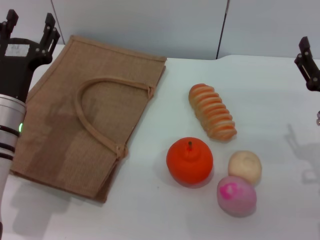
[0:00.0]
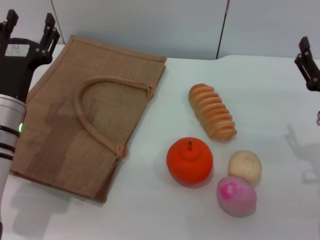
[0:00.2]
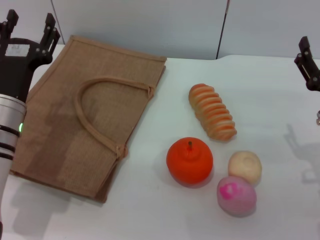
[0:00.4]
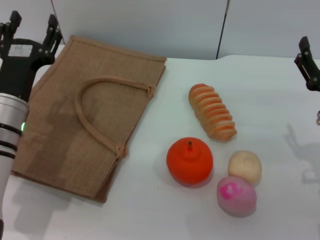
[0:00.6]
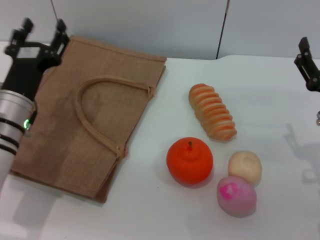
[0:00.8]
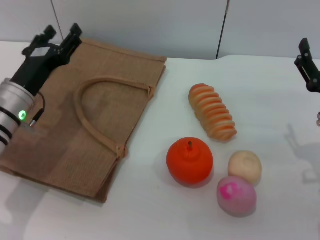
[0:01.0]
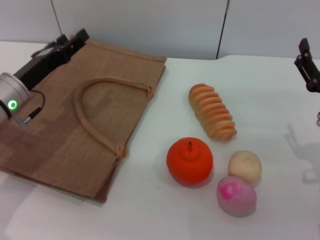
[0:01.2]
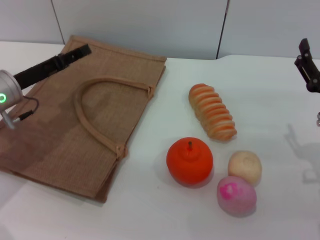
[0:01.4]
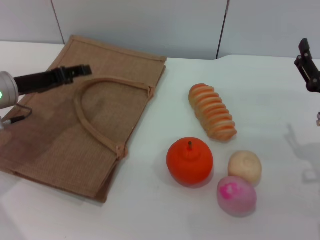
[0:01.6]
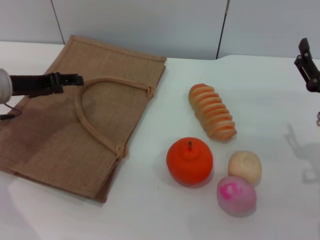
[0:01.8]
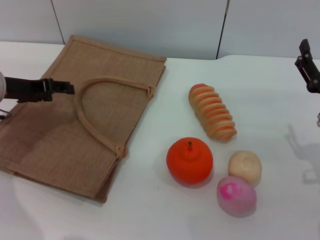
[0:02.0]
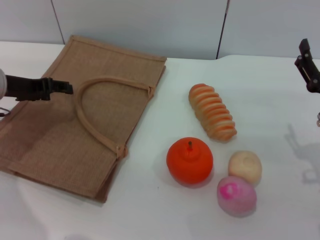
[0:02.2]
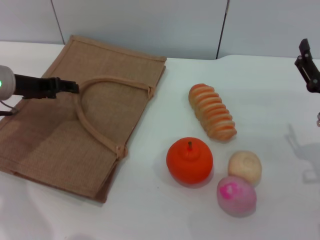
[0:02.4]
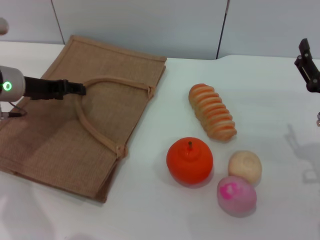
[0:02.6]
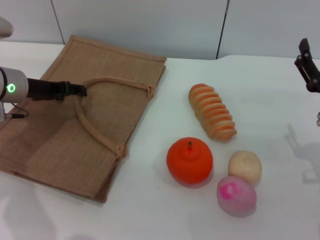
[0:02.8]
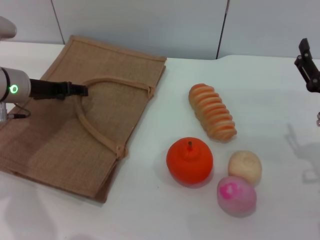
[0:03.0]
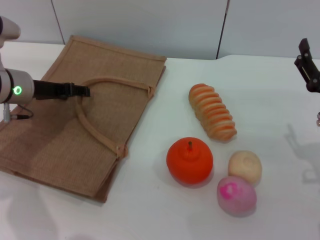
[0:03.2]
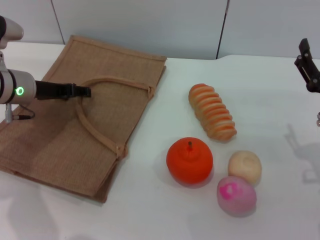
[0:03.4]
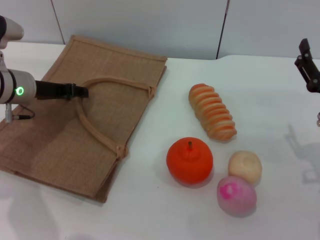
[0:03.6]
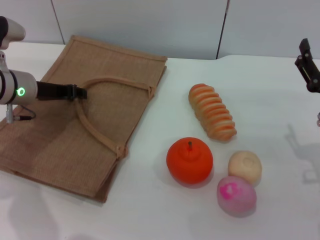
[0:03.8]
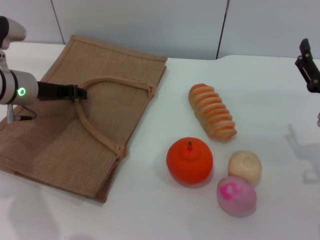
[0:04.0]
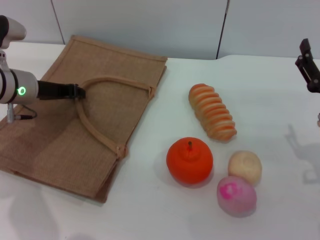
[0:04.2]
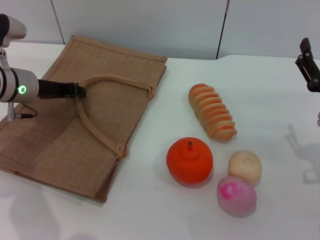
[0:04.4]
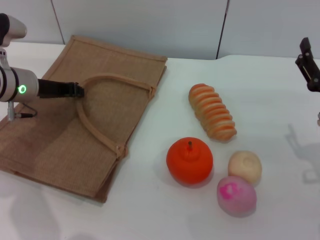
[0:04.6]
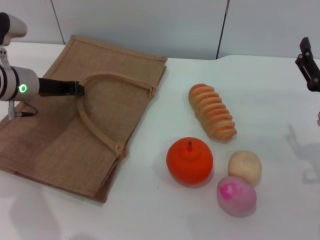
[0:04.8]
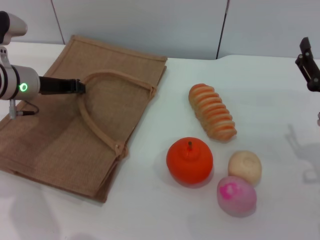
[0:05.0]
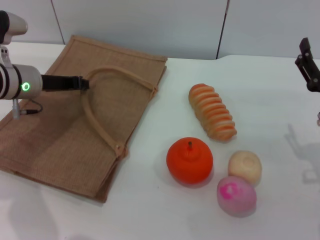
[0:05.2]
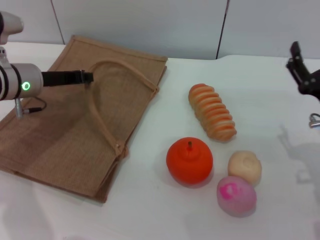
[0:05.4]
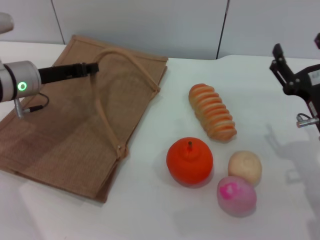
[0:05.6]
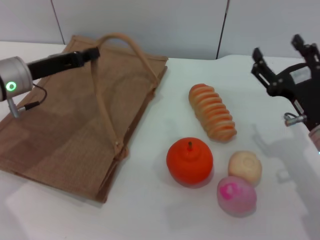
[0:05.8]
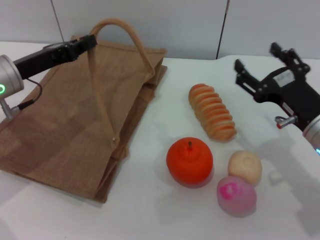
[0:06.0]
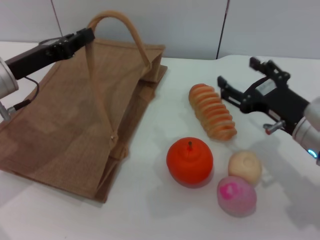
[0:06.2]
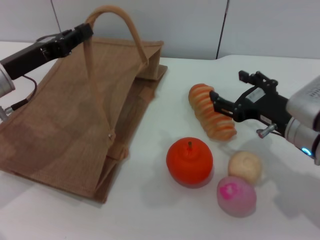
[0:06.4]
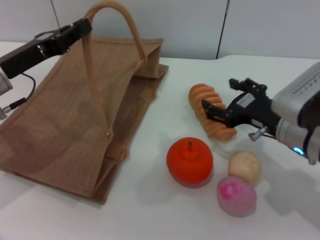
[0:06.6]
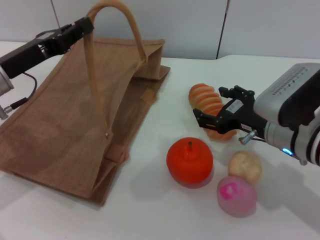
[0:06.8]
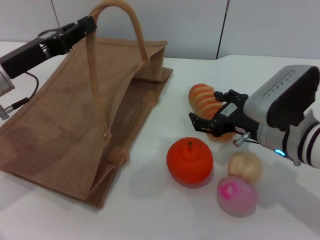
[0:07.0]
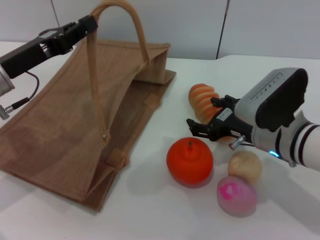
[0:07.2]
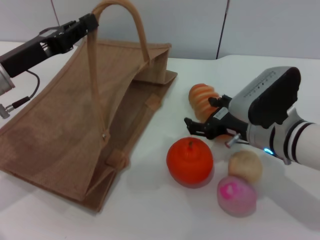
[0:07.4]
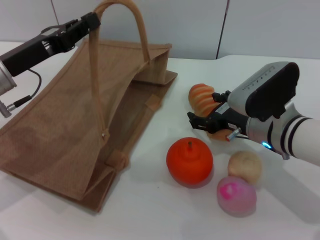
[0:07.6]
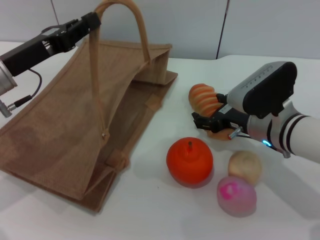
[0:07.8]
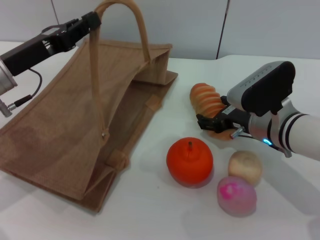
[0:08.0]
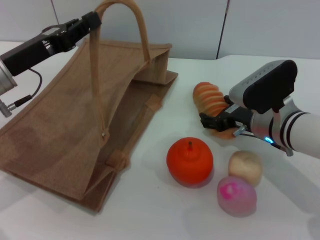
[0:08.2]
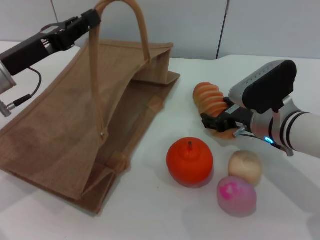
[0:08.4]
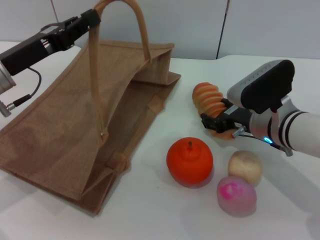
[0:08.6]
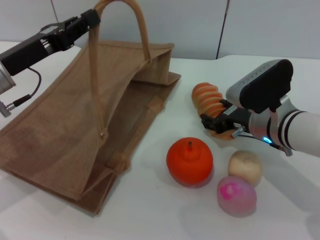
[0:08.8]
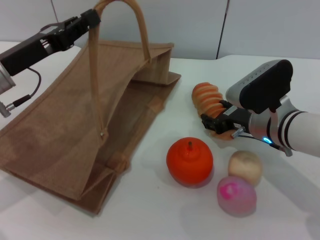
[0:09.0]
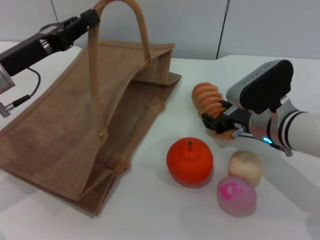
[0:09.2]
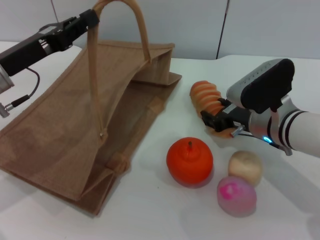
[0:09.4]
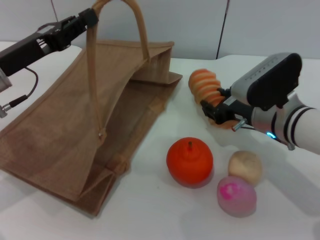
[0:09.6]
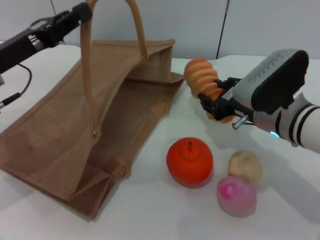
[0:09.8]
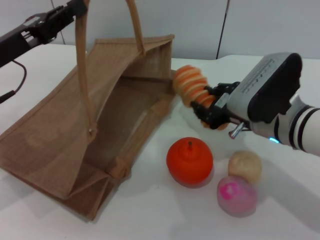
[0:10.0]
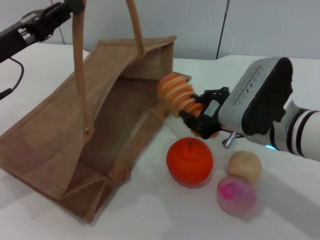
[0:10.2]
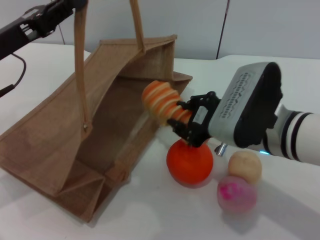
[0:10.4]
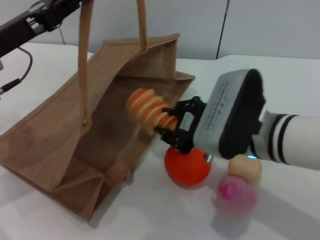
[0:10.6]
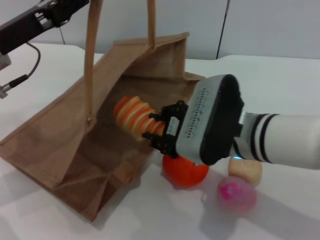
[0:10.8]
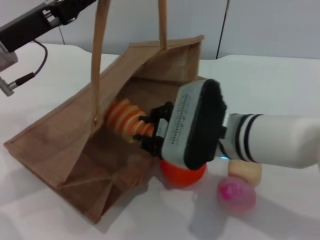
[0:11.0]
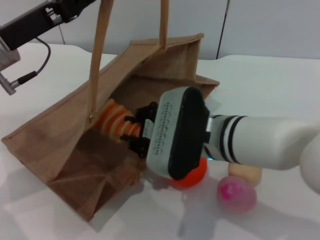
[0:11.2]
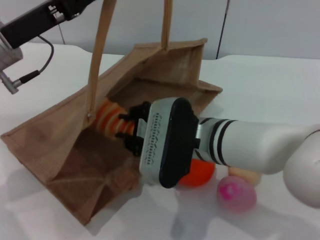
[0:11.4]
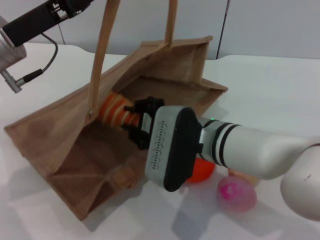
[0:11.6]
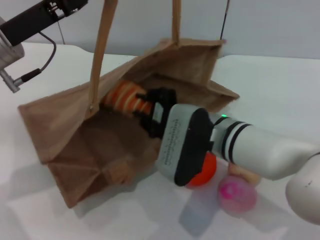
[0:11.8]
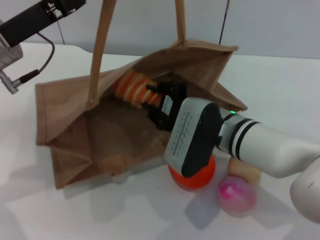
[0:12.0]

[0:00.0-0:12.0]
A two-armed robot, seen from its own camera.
Task of the whole recording: pick up the bread from the table and place it in the brown handbag.
Step, 0:00.0 to 0:05.4: Lift the woven bag with the left gripper to open it.
Step, 0:05.6 to 0:09.8: Pick up the bread with the right gripper.
0:00.0 to 0:01.6: The left gripper goes about 10 cm forward and to the left.
0:03.0 to 0:04.4: The left gripper closes up.
0:06.0 to 0:07.6: The right gripper travels to the left by approximately 5 cm.
0:07.6 to 0:09.0: The grippers move only a little.
0:09.0 to 0:10.4: The right gripper heads upward and backward, covering roughly 10 cm, and closes up.
0:10.4 to 0:12.0: The right gripper goes about 5 cm to the left.

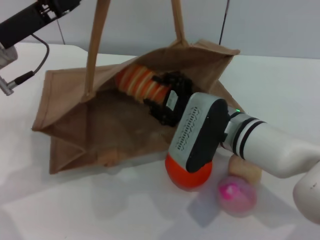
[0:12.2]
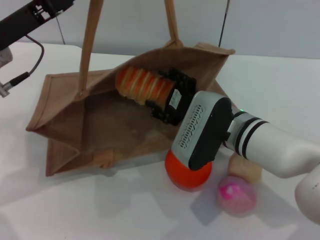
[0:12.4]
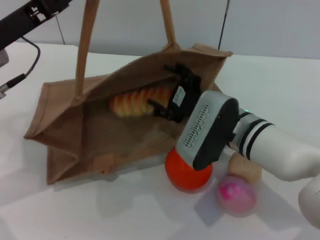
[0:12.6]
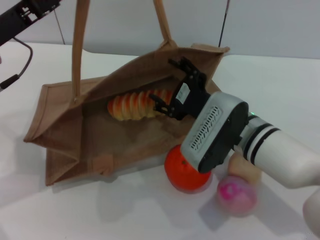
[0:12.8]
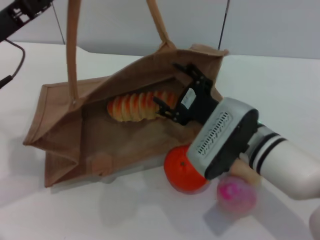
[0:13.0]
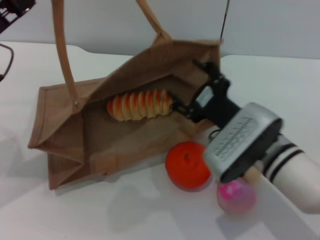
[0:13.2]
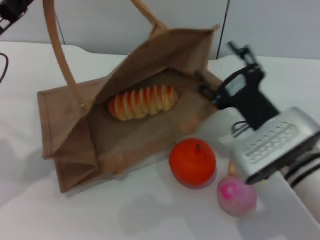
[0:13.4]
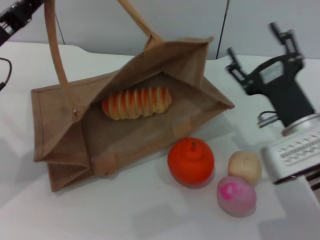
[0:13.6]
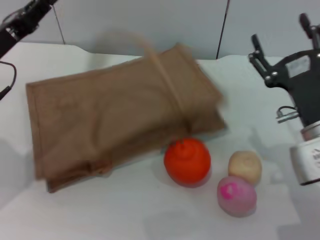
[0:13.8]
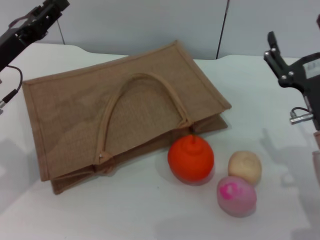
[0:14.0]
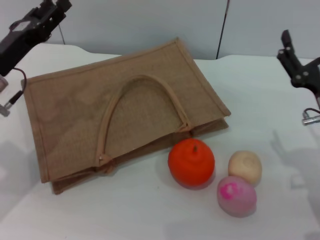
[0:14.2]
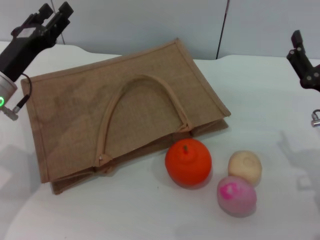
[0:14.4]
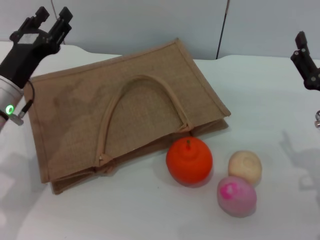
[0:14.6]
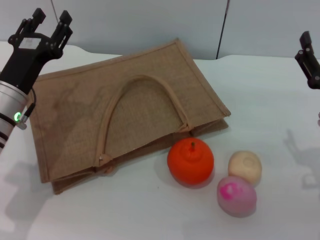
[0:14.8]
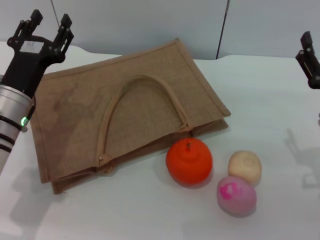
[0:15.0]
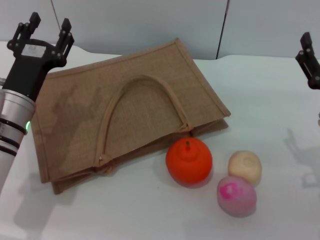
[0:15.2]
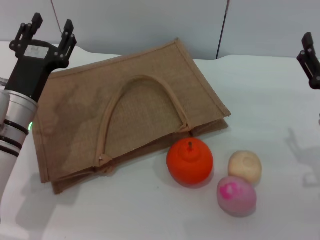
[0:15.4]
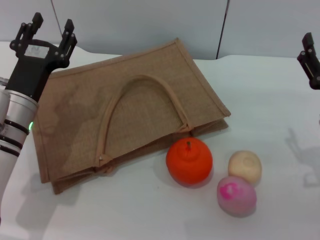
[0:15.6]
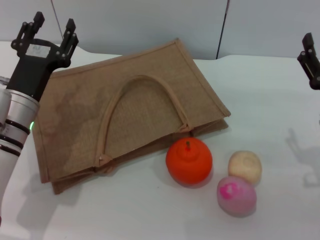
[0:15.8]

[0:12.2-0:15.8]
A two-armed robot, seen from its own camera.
Task of the whole recording: pick up the bread from the table and place it in the brown handbag.
Step, 0:13.0 to 0:14.0: Lower the woven bag with the left gripper to close it.
0:12.2 to 0:14.0: The left gripper travels downward by some 5 cm, while the right gripper is displaced to the right and backward by about 15 cm, and opens up.
0:14.0 to 0:15.8: The left gripper heads to the right and downward, covering about 10 cm, and opens up.

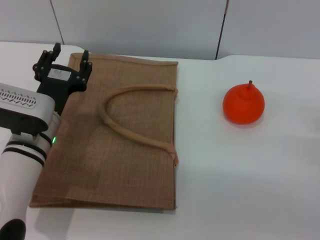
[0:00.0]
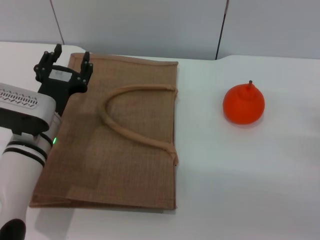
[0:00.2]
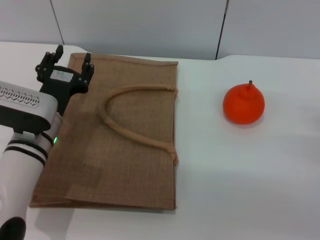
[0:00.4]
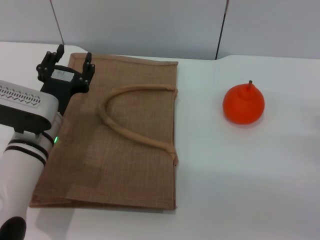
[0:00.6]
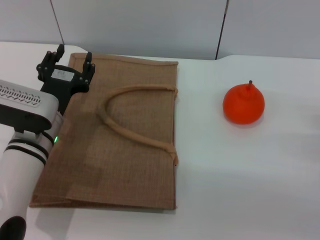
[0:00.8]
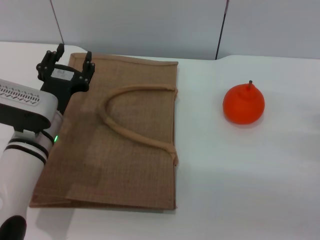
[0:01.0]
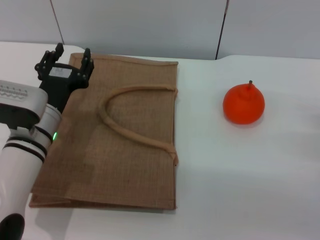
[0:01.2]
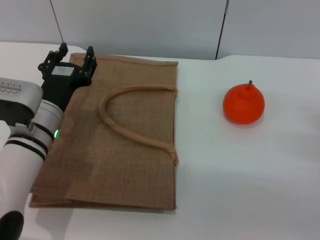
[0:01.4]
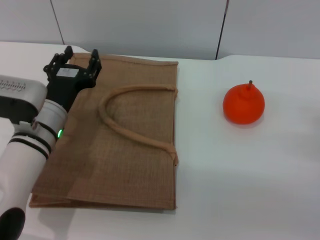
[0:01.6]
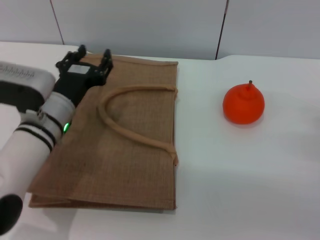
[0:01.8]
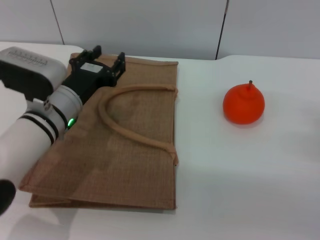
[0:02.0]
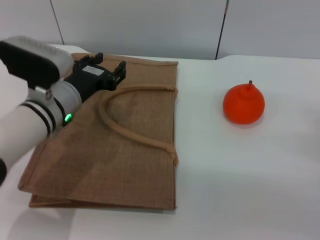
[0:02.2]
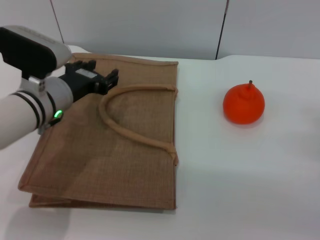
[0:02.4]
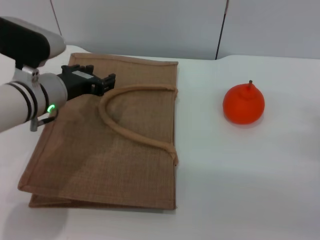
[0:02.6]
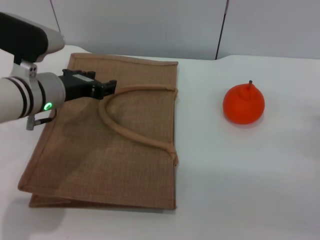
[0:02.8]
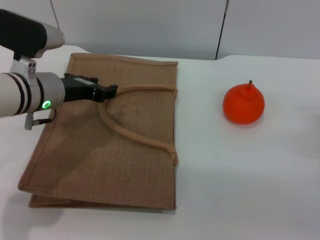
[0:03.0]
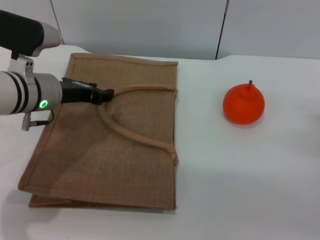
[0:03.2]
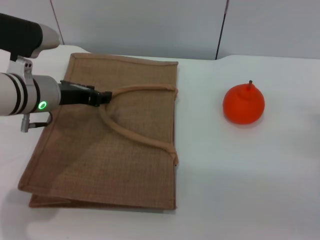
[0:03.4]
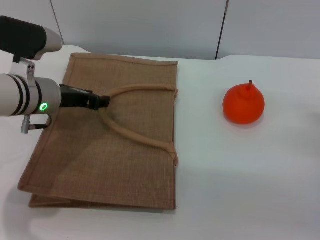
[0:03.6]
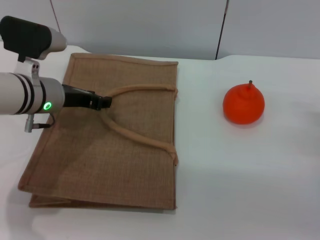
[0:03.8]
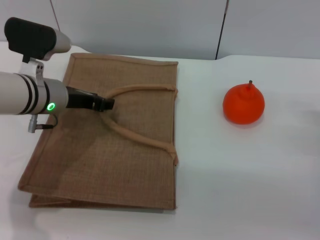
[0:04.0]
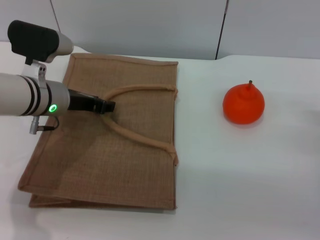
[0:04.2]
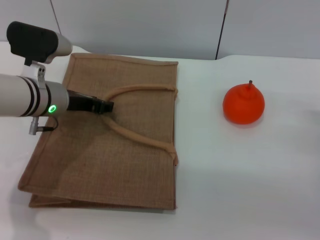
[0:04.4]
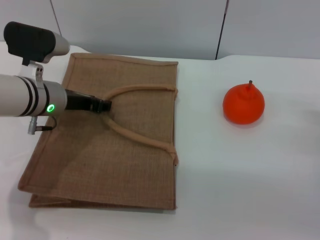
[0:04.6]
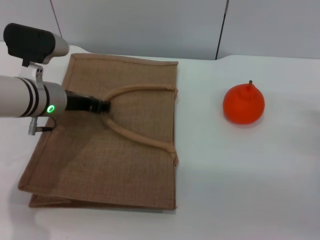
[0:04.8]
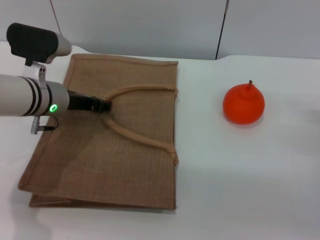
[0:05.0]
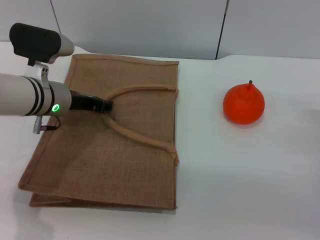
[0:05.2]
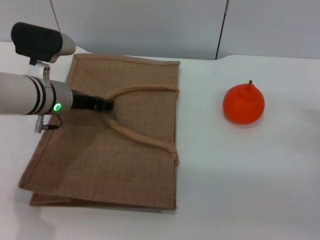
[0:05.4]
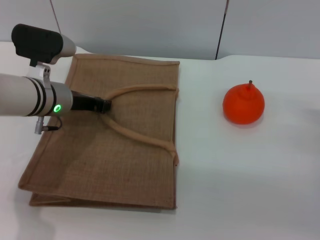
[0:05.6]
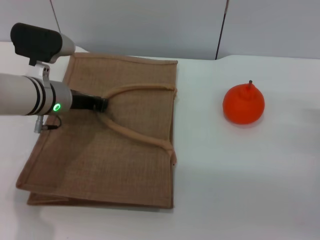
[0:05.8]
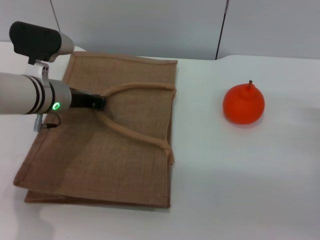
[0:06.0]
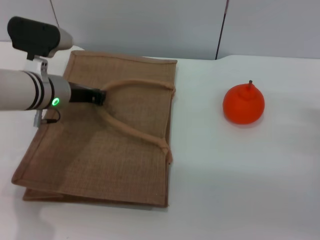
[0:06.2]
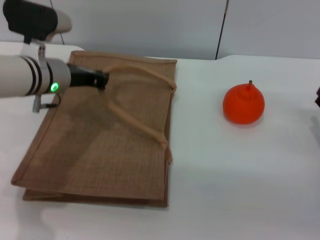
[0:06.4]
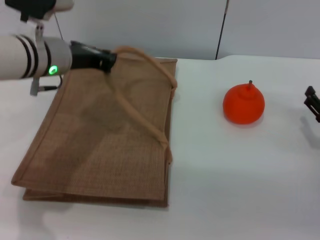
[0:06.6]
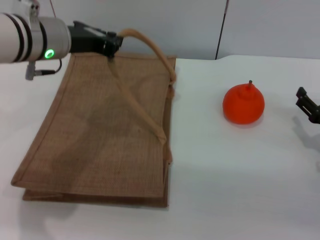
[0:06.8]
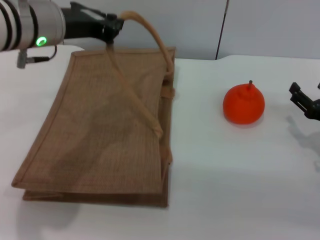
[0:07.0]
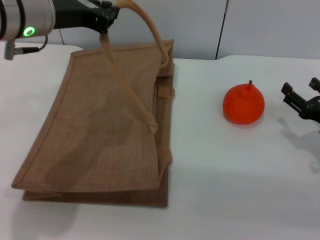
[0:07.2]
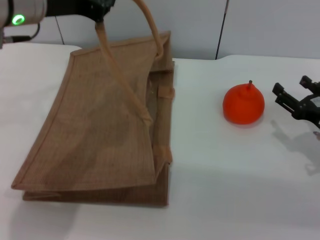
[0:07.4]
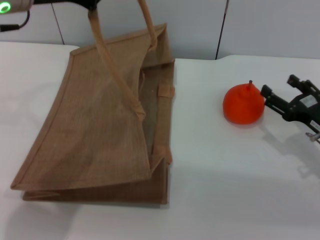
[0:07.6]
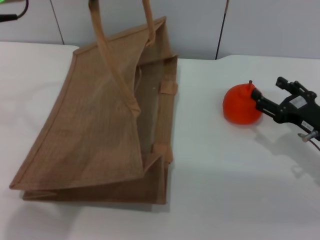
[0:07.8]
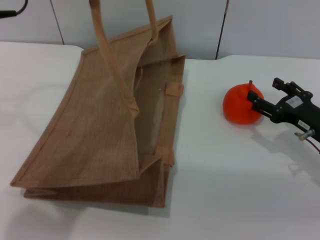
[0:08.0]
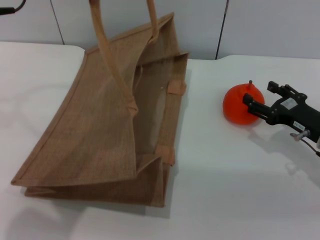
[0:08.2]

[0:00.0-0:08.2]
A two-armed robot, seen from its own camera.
Task of the whole recording: pick up the orange from the table and place it in the brown handbag.
Step, 0:00.0 to 0:06.2: Lift the woven bag with the left gripper to open it.
0:00.0 to 0:01.6: The grippers make only small movements.
0:01.6 to 0:03.2: The left gripper travels upward by about 5 cm.
0:03.2 to 0:05.0: The grippers stay close to where they were, moving slightly.
0:05.0 to 0:06.6: The left gripper moves upward, about 5 cm, and closes its fingers.
0:06.6 to 0:08.2: The left gripper goes roughly 15 cm upward and backward; the right gripper changes place by approximately 5 cm.
